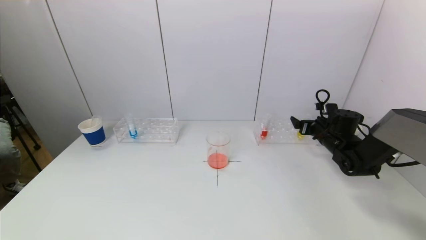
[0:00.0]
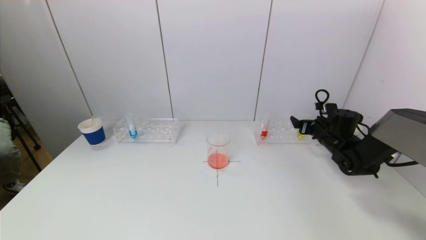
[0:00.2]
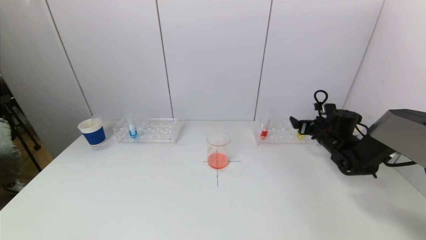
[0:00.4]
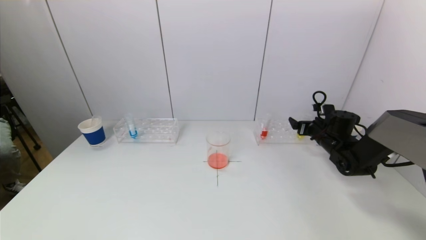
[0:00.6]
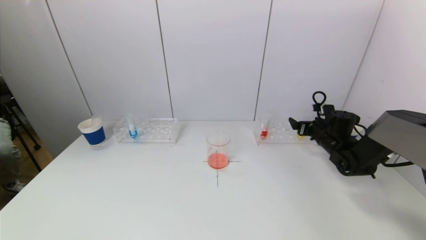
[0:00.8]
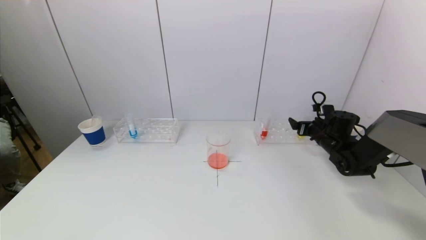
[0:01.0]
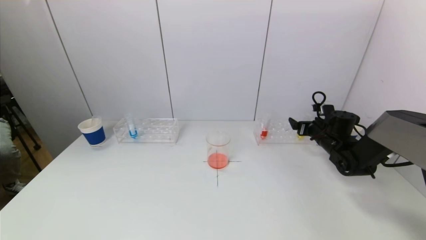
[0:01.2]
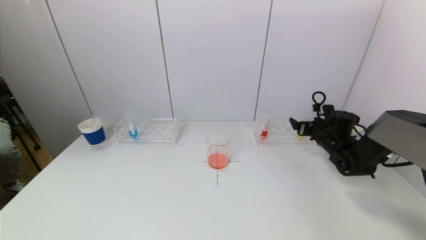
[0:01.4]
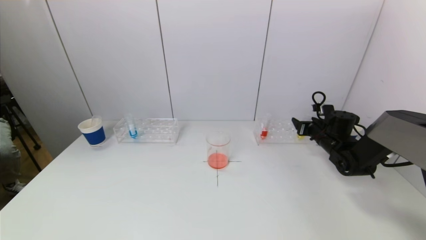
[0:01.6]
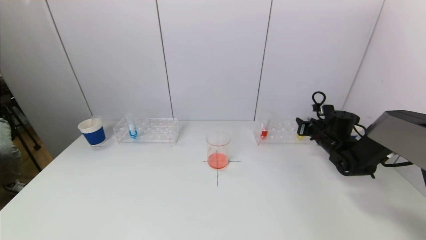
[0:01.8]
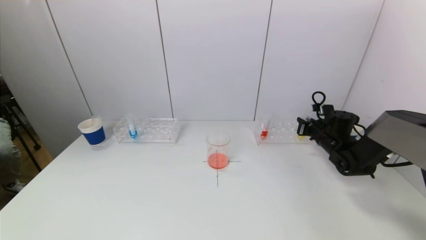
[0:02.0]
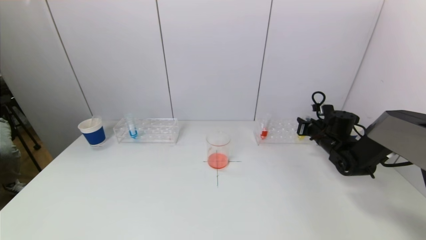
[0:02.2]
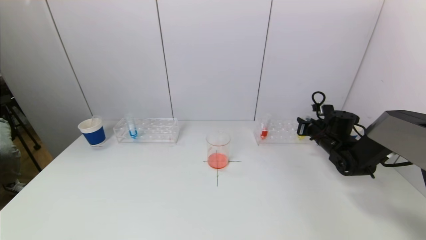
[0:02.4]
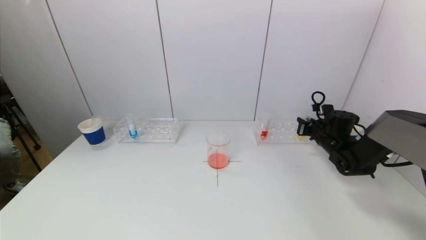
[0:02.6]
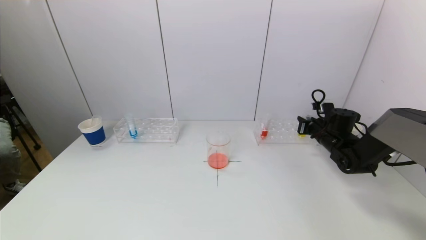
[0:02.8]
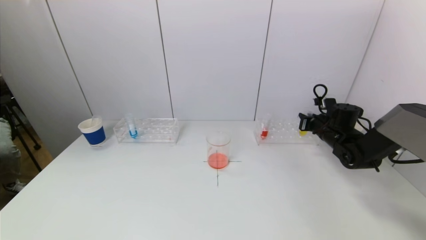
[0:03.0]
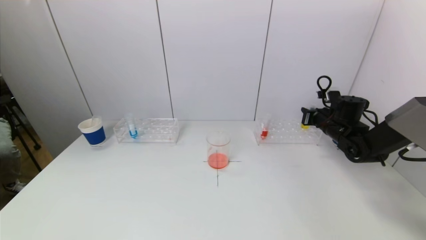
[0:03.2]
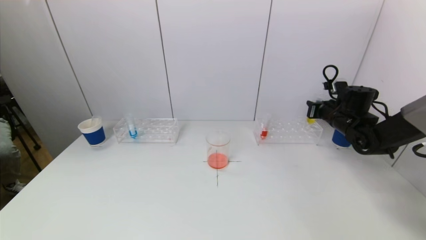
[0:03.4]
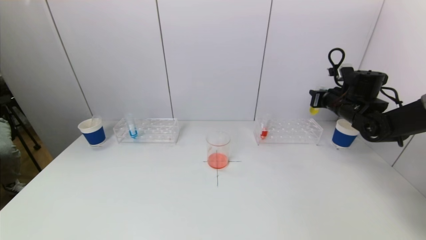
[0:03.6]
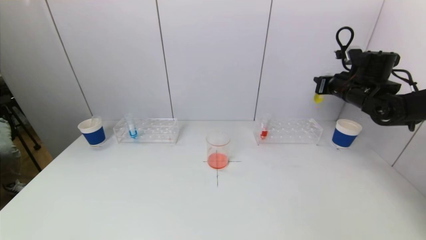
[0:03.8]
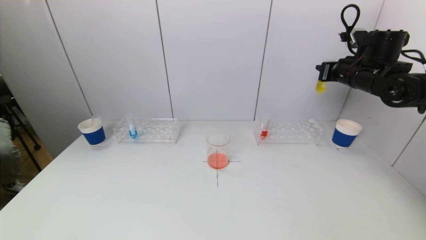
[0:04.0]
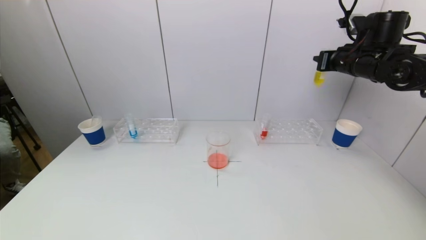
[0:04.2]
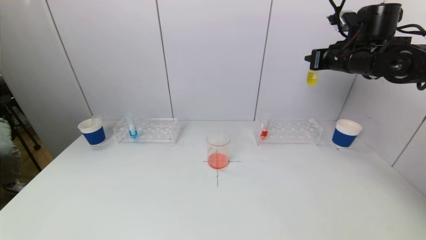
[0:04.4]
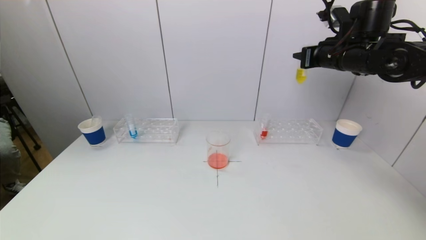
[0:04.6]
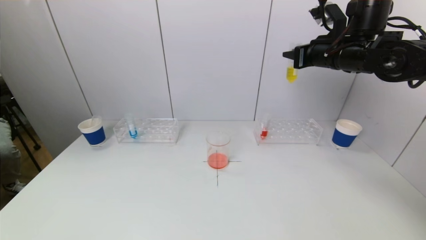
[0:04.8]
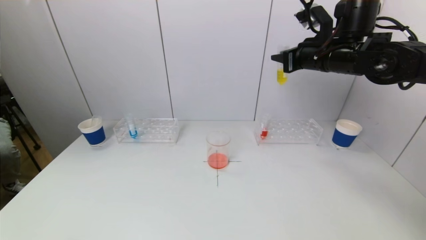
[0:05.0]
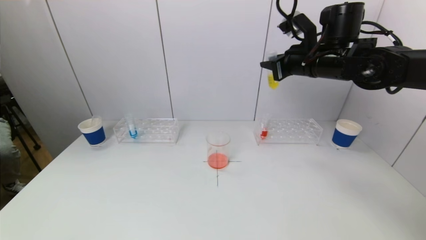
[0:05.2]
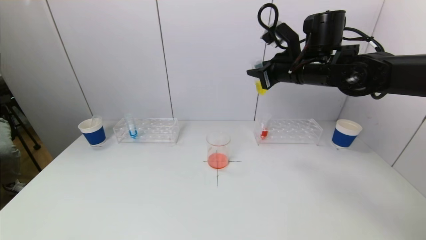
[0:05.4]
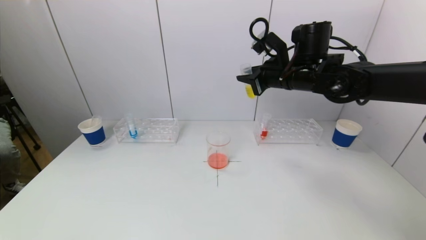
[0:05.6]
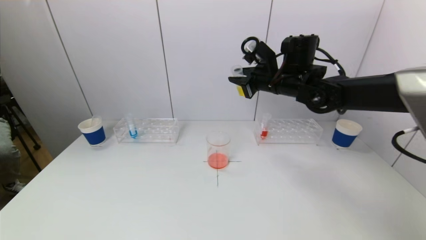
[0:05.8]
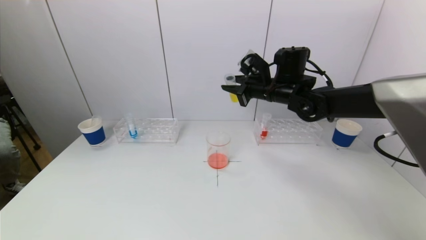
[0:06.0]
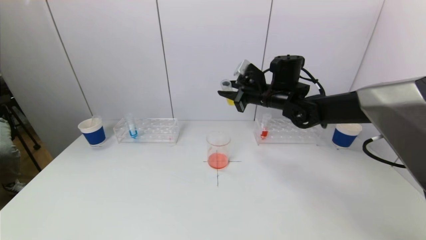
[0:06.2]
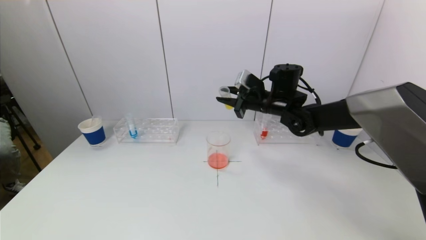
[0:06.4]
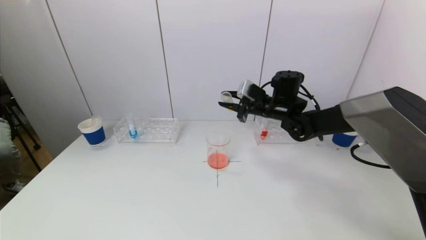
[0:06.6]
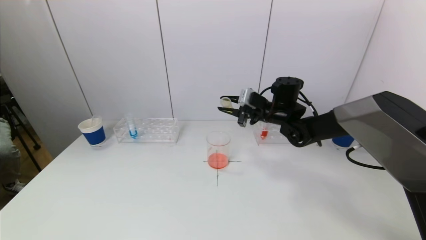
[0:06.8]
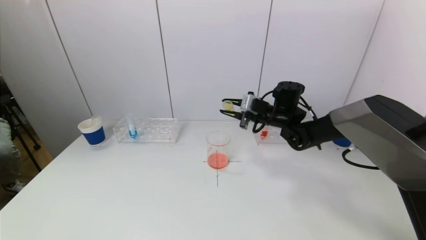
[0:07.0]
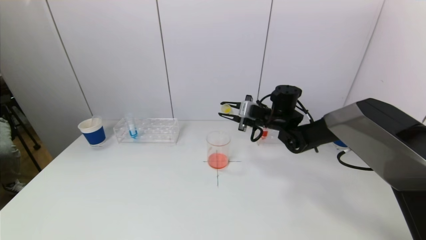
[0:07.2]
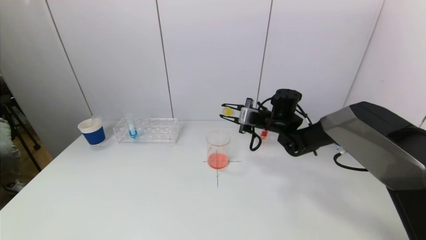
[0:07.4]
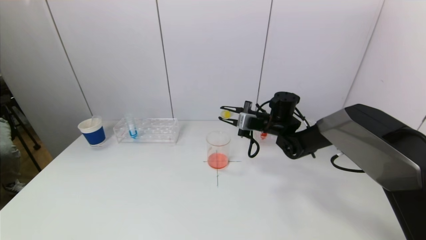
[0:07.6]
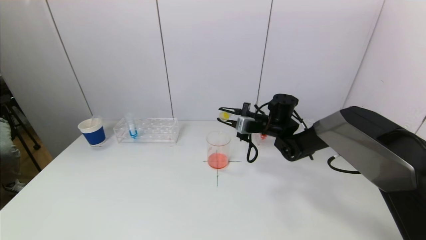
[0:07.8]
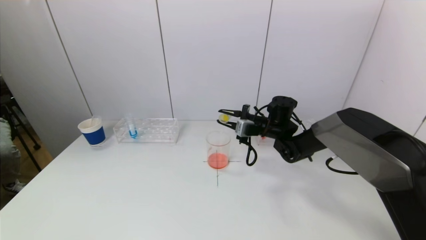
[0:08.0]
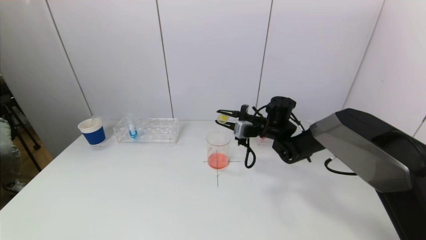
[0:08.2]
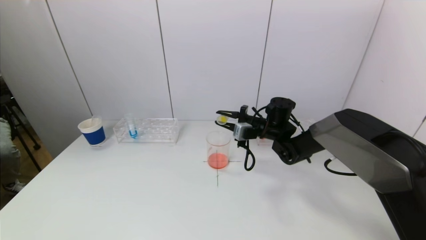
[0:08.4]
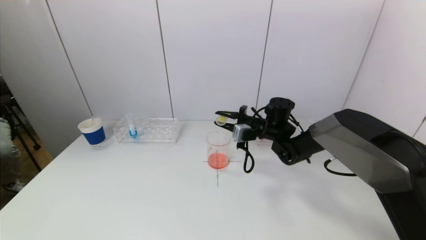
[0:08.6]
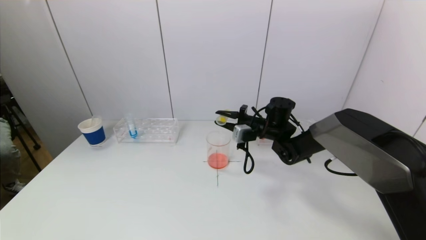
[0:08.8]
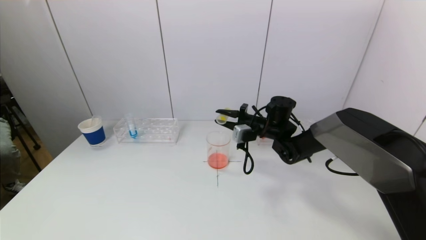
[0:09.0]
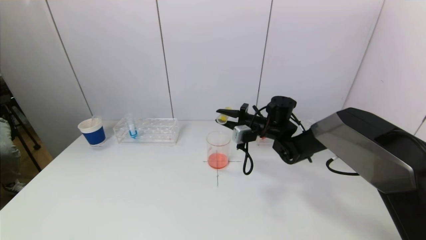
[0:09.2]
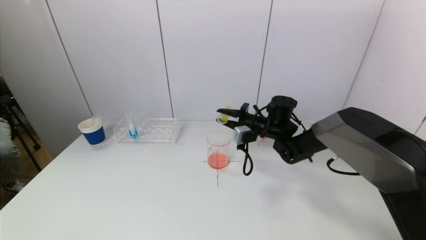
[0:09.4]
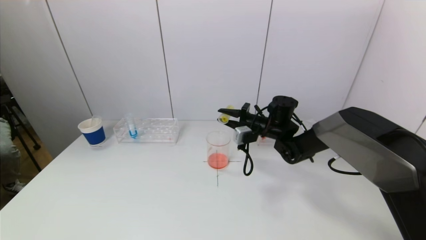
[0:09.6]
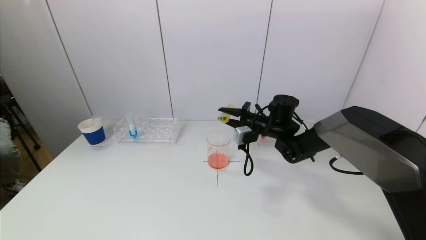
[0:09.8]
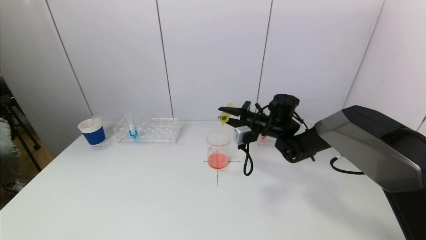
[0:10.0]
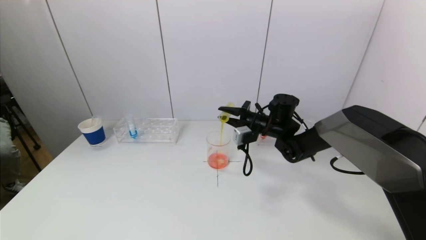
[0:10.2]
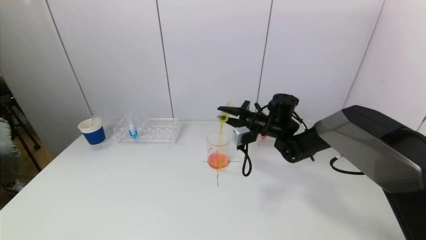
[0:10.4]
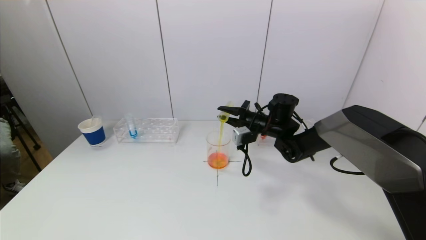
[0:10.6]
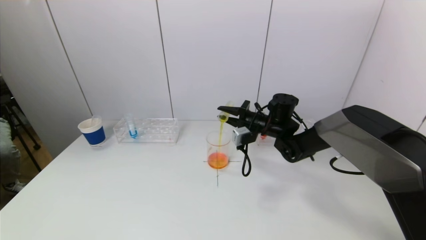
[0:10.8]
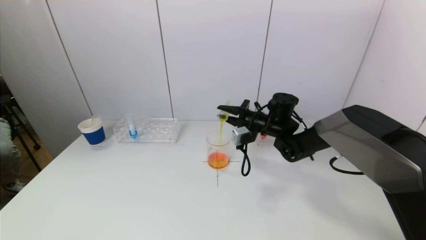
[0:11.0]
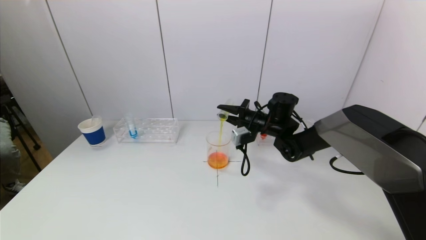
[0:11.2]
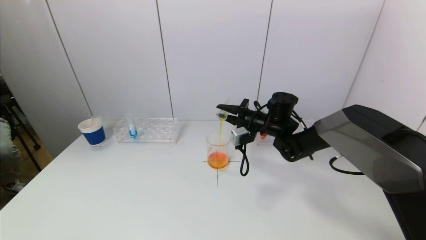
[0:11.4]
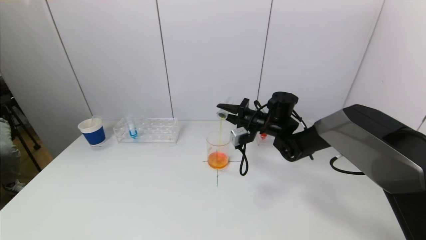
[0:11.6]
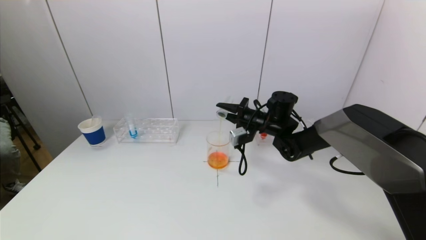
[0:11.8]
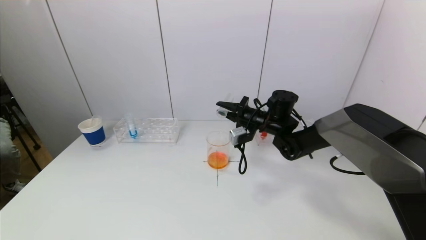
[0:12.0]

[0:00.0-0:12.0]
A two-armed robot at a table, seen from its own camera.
Task of the whole recording: pick up a test tube with pigment on left test tube rack and a test tube with pigment on right test tube rack by grippers and pour them into the beaker.
Step, 0:00.0 to 0:02.2: Grasp the yellow reagent with the right gripper.
0:00.0 to 0:01.6: The right gripper closes its fingers.
0:01.6 to 0:03.0: The right gripper closes up.
0:03.0 to 0:04.4: The right gripper is displaced upward by roughly 20 cm.
0:04.4 to 0:06.0: The right gripper shifts roughly 15 cm to the left and downward.
0:06.0 to 0:07.6: The right gripper is displaced downward by approximately 10 cm.
0:07.6 to 0:09.0: The grippers make only small movements.
0:09.0 to 0:10.4: The grippers stay close to where they were, moving slightly.
0:10.4 to 0:12.0: The grippers make only small movements.

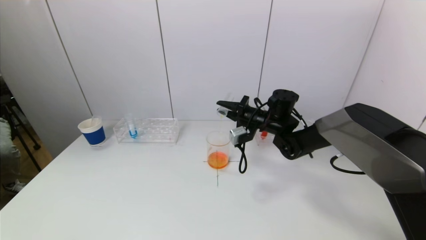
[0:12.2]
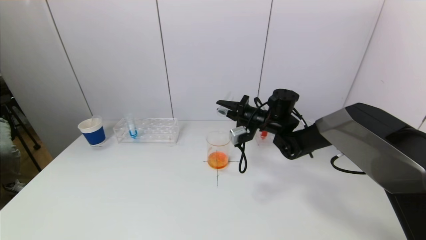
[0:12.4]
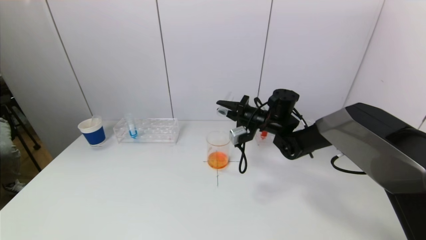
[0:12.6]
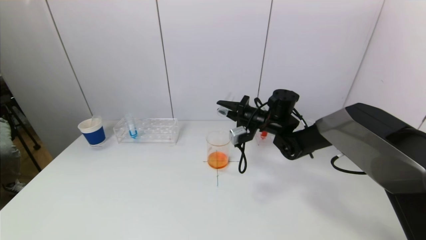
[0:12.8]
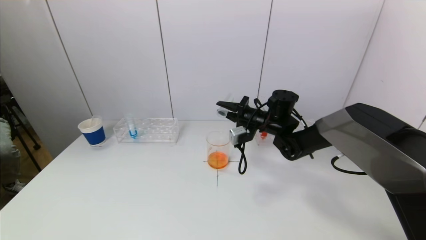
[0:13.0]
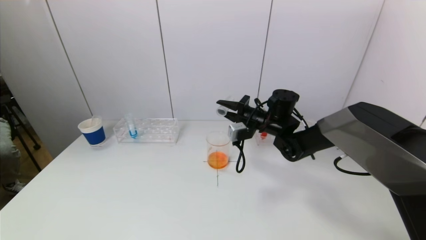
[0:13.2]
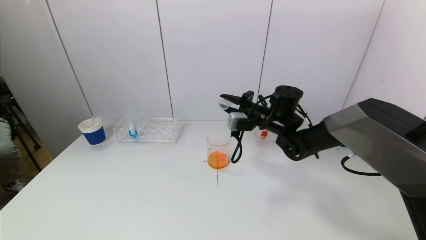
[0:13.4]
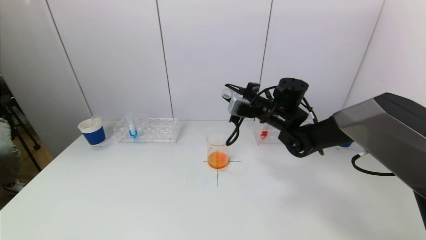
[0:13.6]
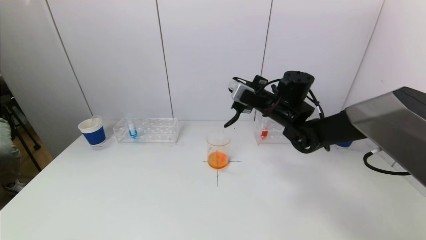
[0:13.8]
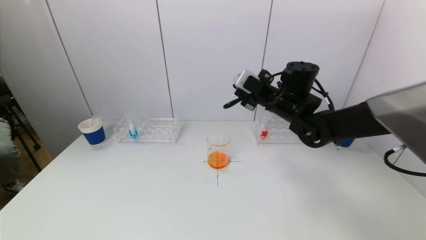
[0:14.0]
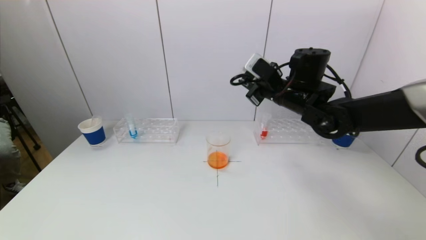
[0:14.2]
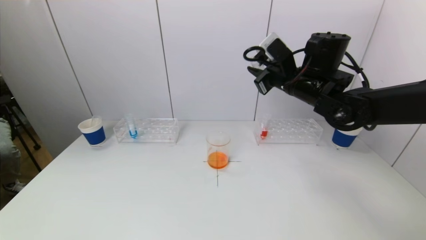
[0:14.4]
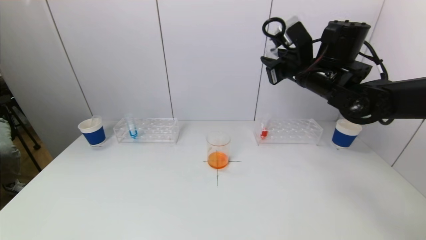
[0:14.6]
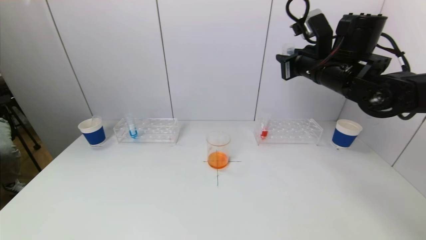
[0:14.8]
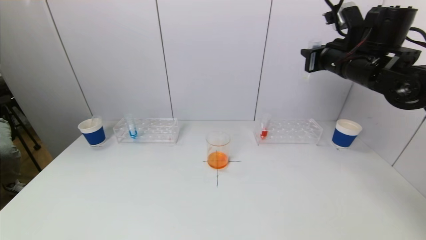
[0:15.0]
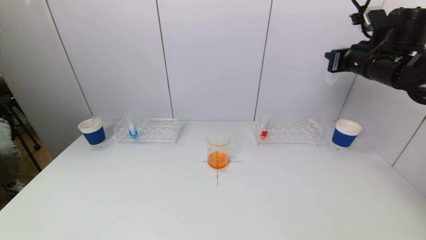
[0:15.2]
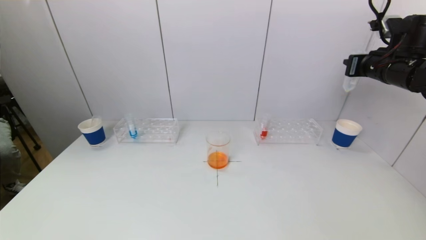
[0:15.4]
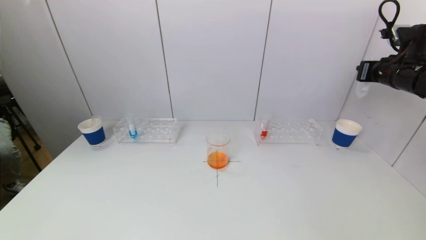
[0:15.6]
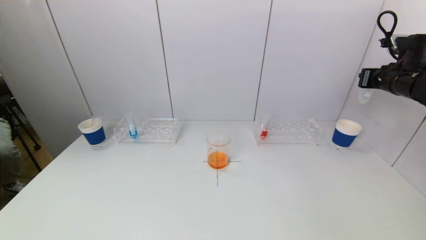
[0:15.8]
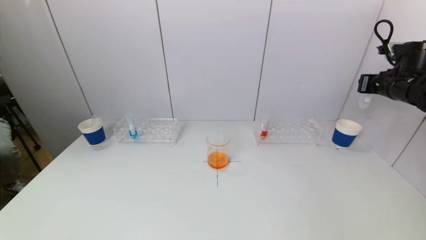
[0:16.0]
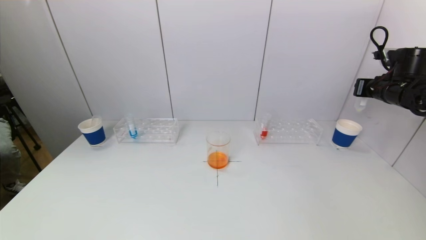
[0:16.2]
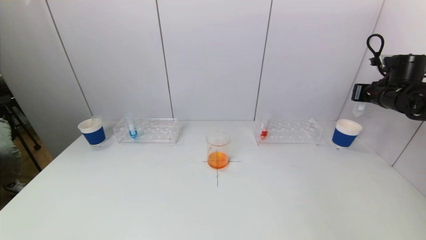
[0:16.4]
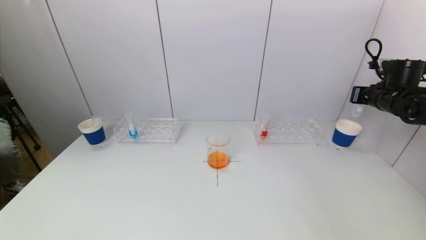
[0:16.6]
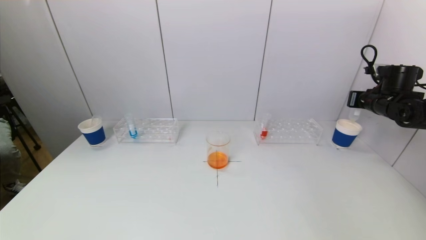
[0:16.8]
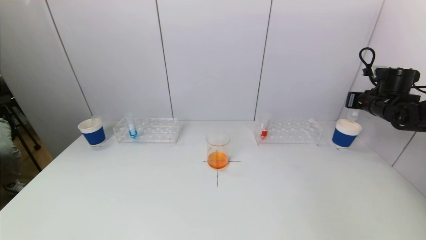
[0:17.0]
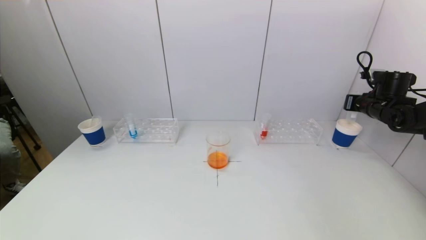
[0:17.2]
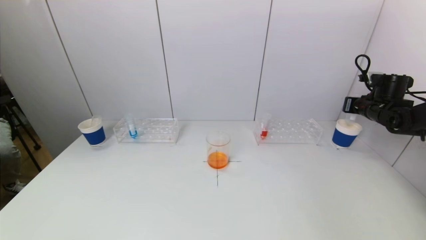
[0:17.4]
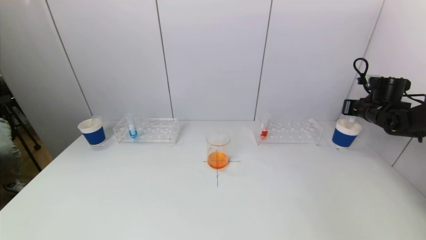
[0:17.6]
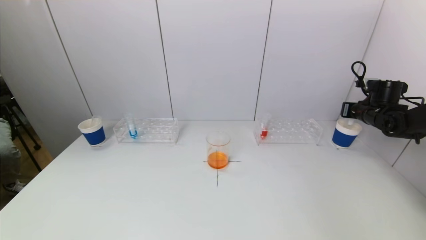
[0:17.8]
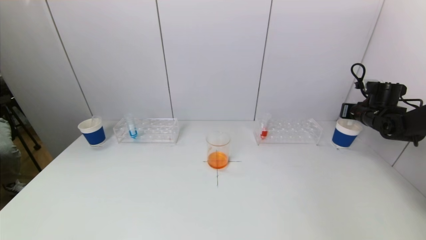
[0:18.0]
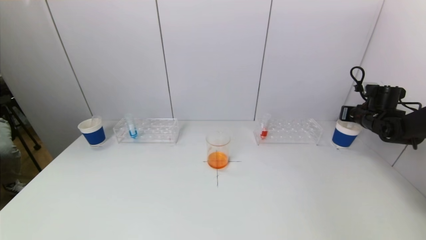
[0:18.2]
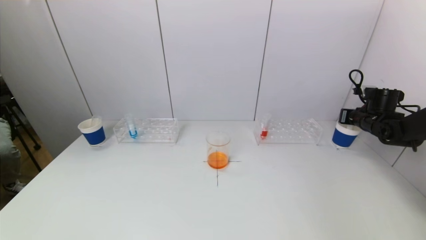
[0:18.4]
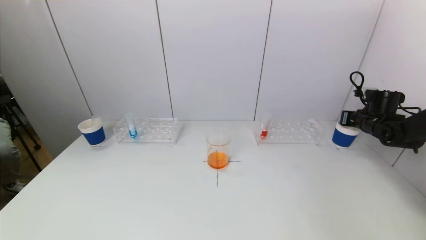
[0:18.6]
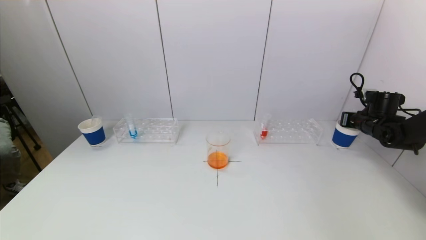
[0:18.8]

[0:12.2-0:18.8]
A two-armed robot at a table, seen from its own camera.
Task of the whole recording: pick up a test tube with pigment on left test tube rack and a test tube with pigment on right test tube rack by grippers and pour them into the beaker.
0:12.2 to 0:13.8: The right gripper travels upward by some 5 cm.
0:13.8 to 0:15.4: The right gripper moves to the right and upward, roughly 25 cm.
0:15.4 to 0:17.2: The right gripper shifts approximately 15 cm downward, to the right and forward.
0:17.2 to 0:18.8: The right gripper goes roughly 5 cm downward.
